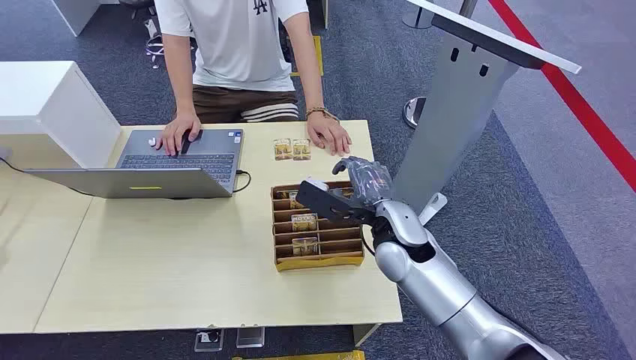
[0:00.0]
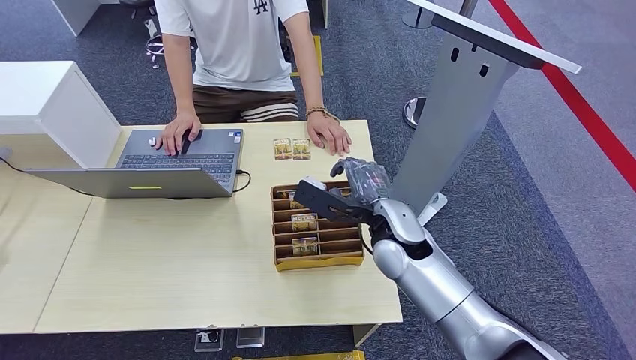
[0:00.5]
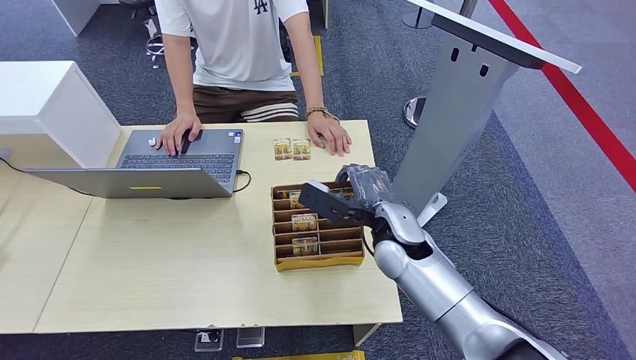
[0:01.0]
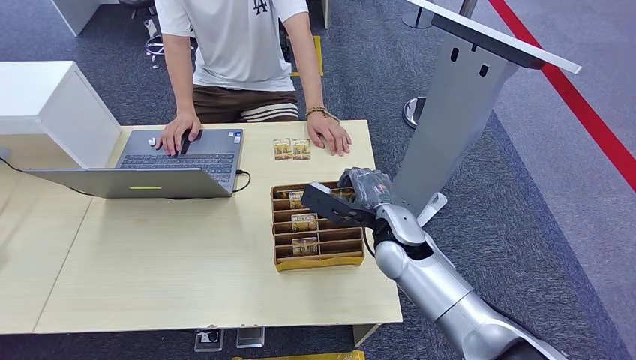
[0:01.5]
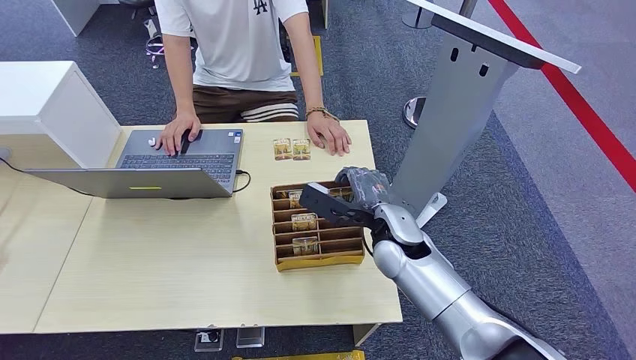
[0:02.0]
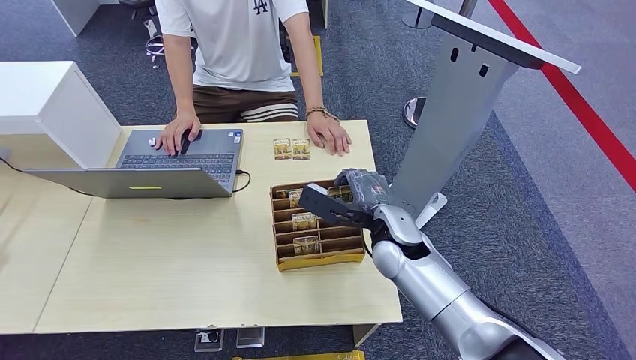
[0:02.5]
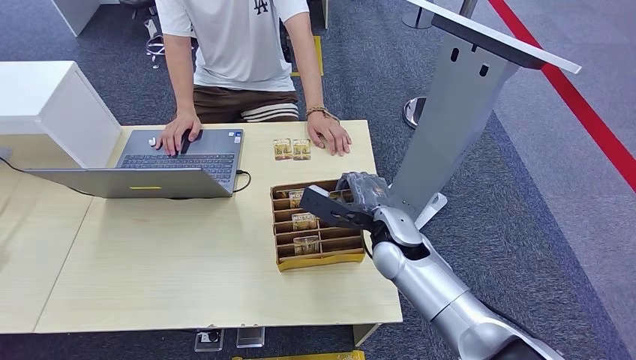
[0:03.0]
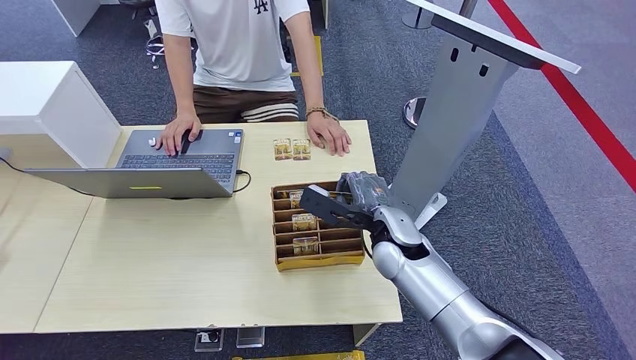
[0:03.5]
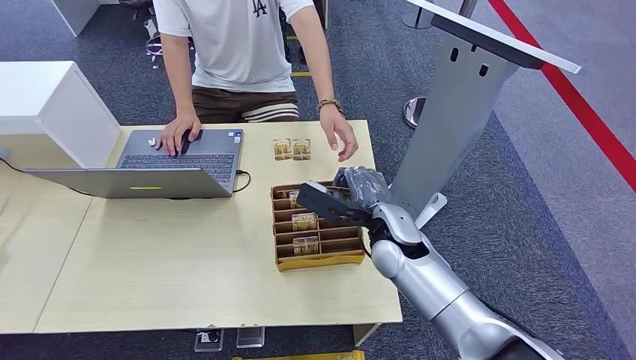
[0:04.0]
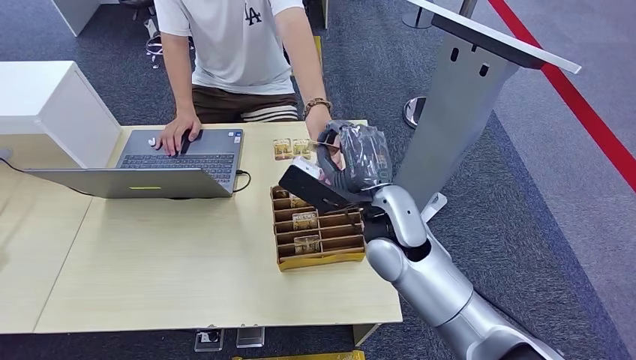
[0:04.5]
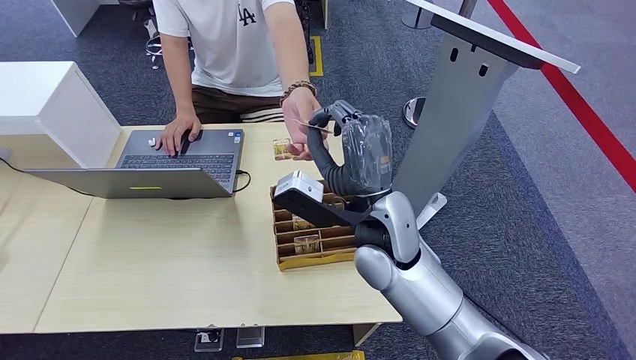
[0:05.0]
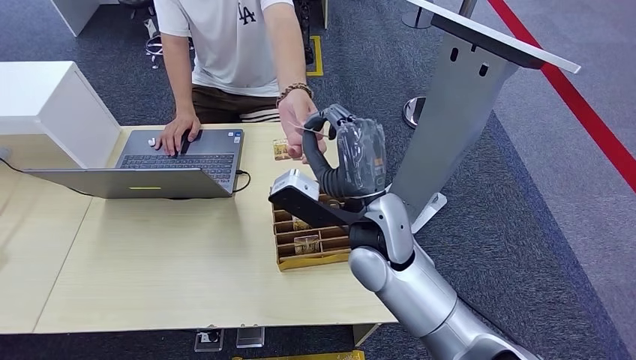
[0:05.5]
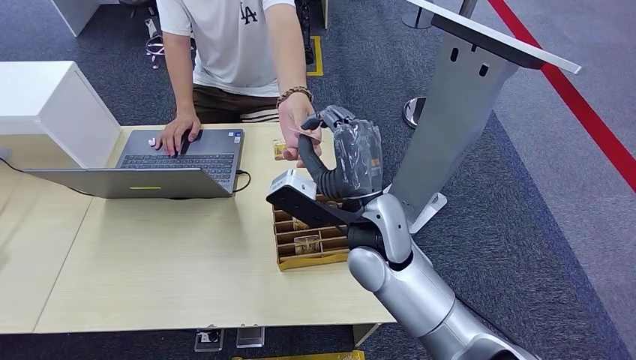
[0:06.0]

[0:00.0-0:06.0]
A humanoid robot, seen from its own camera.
Step, 0:00.0 to 0:04.0: Pick up the key card from the card box.
Step, 0:04.5 to 0:06.0: Hand the key card to the target.
0:02.0 to 0:04.0: Neither hand changes place.
0:04.0 to 0:06.0: The right hand moves upward and to the left, roughly 10 cm.
